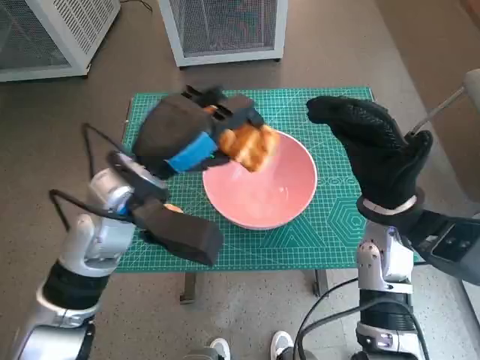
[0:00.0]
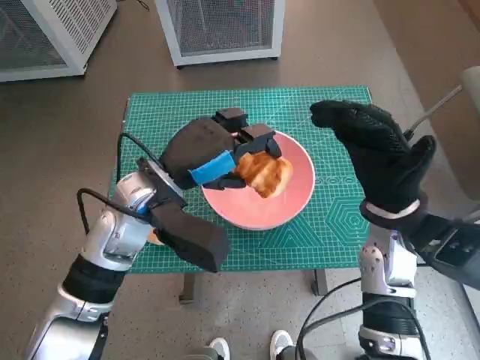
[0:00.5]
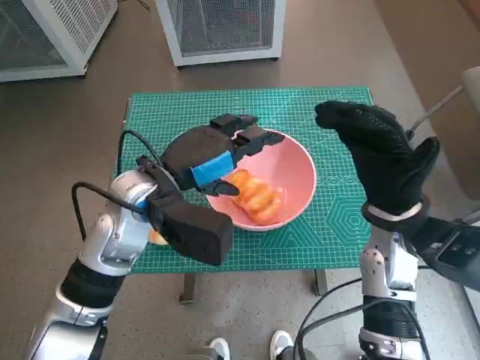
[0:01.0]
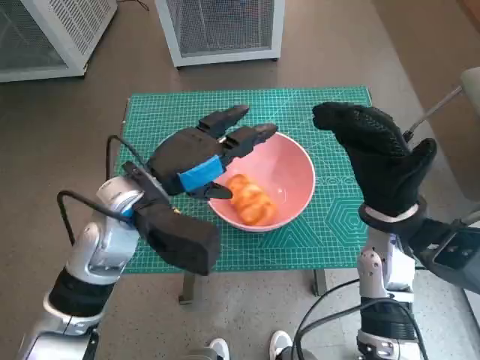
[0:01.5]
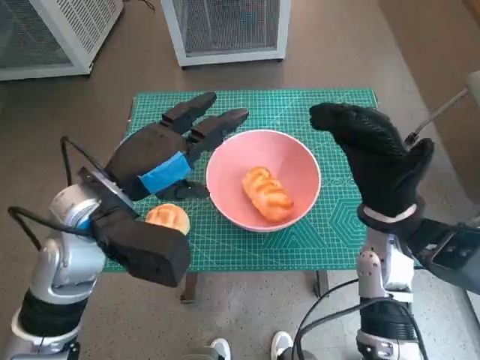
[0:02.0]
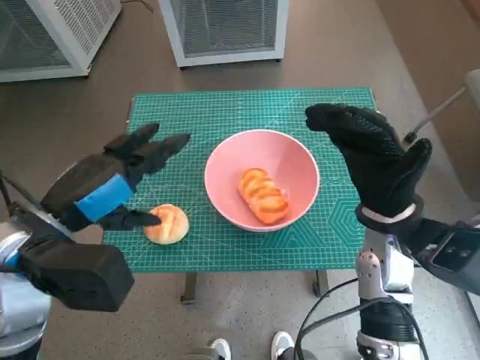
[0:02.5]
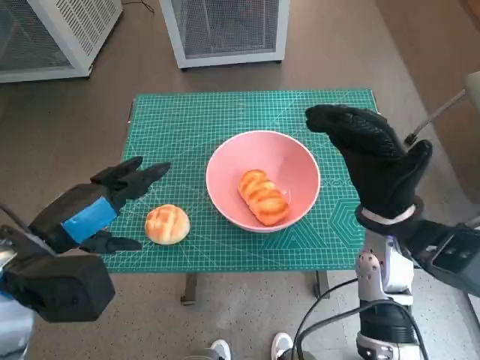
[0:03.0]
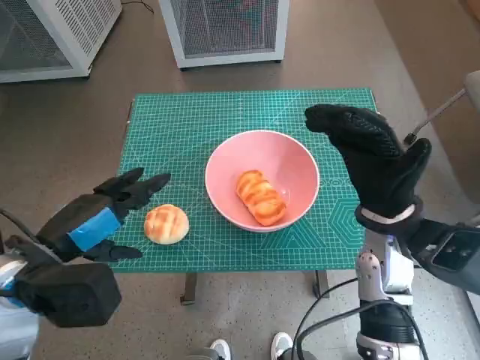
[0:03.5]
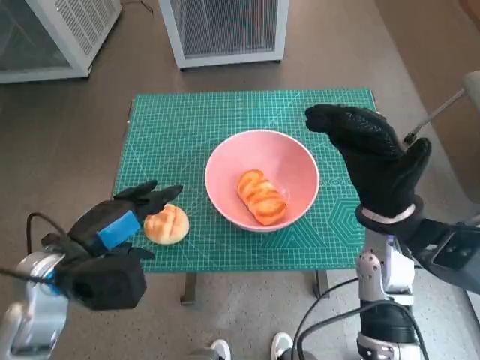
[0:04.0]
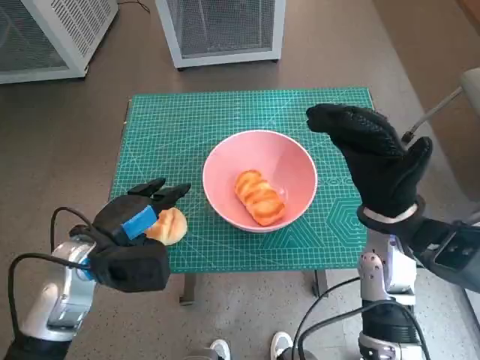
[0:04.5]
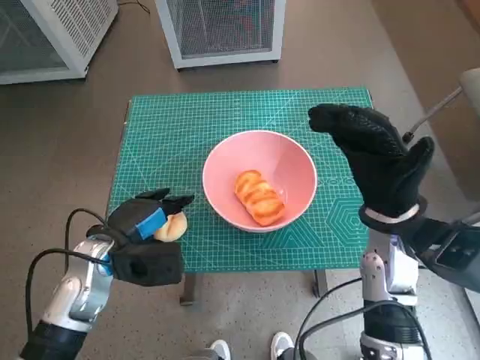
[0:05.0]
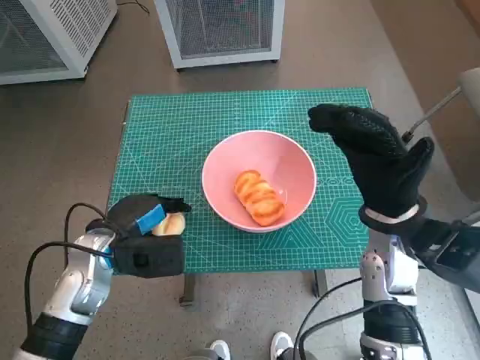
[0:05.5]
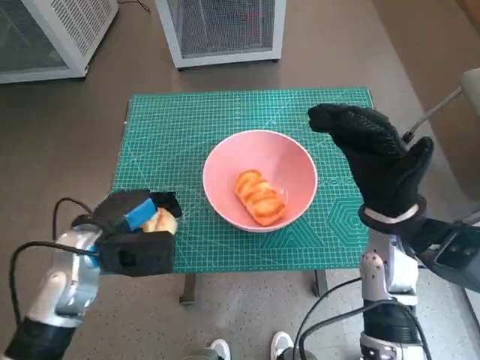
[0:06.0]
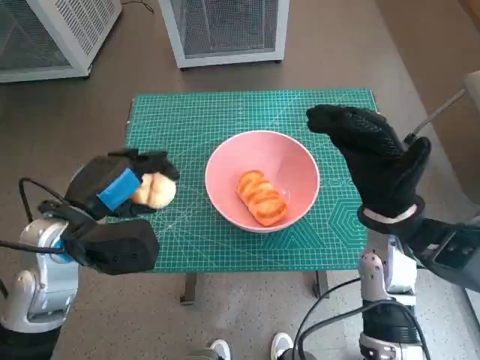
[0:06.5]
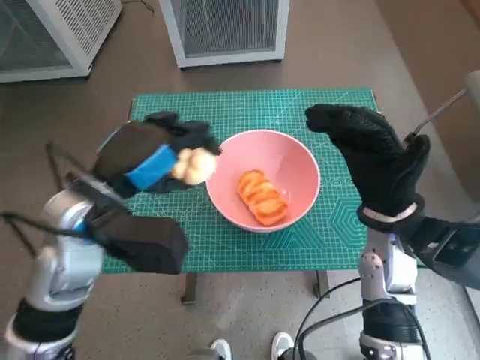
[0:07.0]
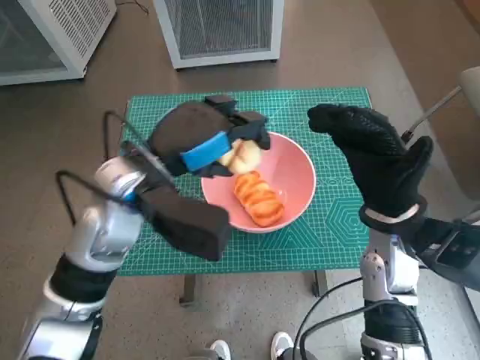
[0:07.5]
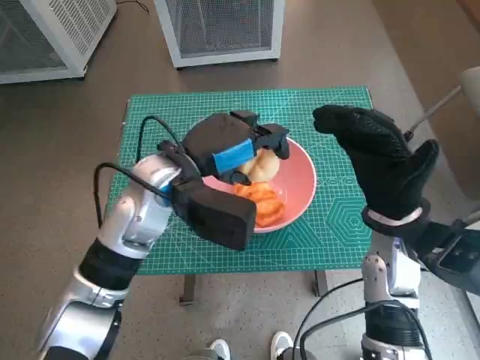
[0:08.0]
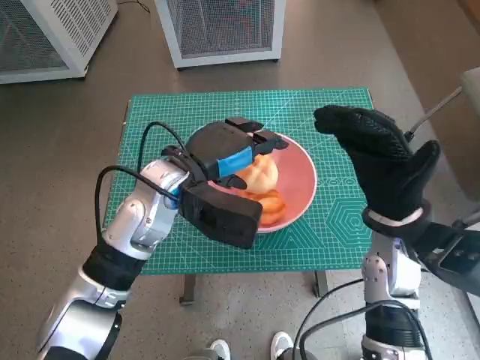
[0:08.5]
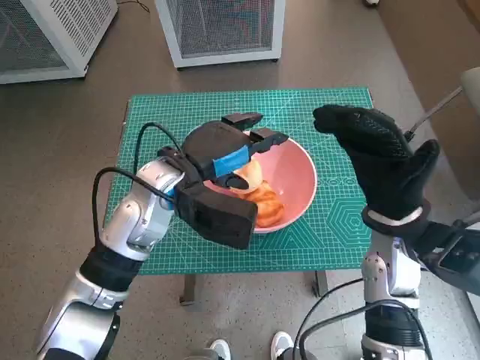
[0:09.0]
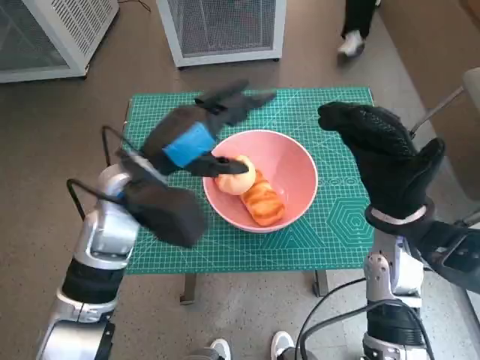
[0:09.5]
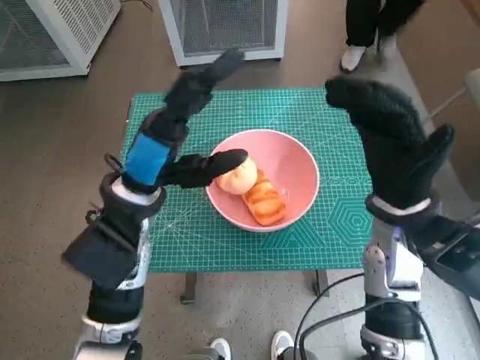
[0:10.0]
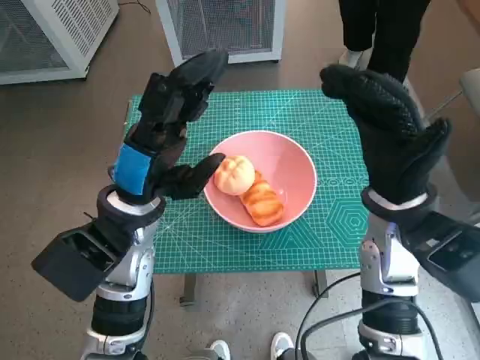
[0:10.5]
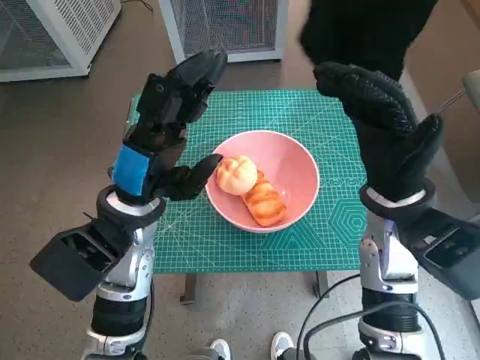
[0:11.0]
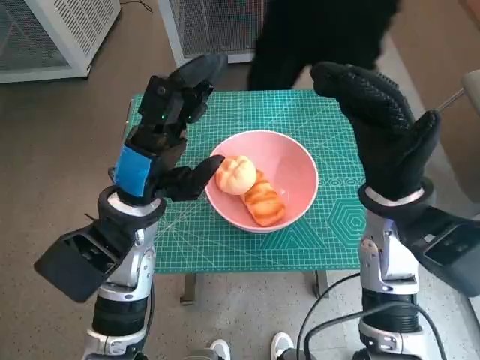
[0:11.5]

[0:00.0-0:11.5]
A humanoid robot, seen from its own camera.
Task of the whole recording: Push the bowl into the center of the table and put the bread into the bowl.
Step, 0:01.0 to 0:05.0: Grasp the round bread with left hand.
Step, 0:05.5 to 0:08.0: Place the round bread in pink bowl with left hand.
0:02.0 to 0:04.0: The left hand moves to the left and downward, roughly 10 cm.
0:04.0 to 0:06.0: The left hand changes place by about 5 cm.
0:06.0 to 0:07.5: The left hand travels upward and to the right by about 15 cm.
0:07.5 to 0:09.5: There are only small adjustments of the hands.

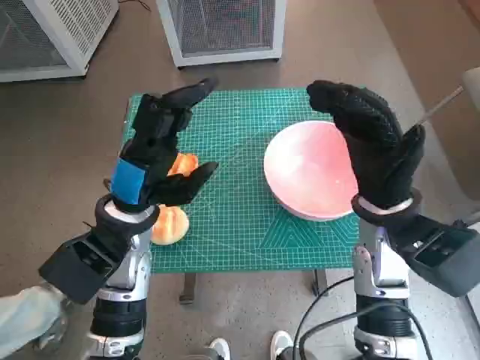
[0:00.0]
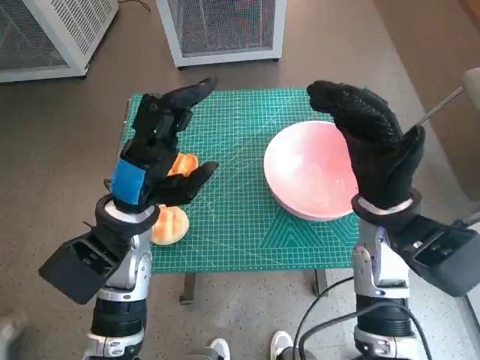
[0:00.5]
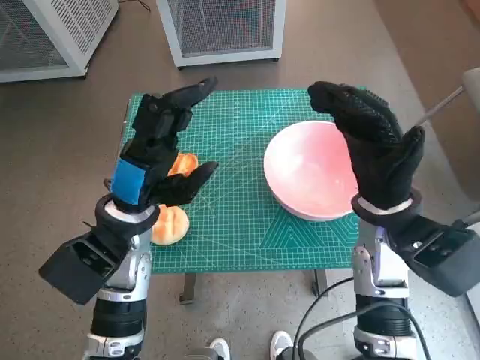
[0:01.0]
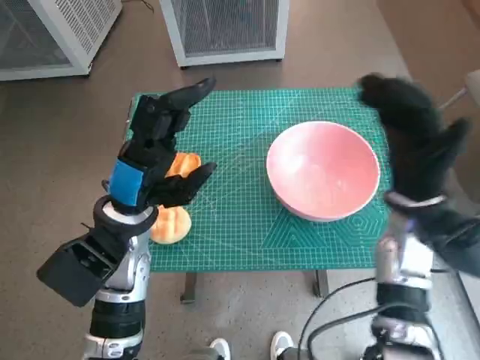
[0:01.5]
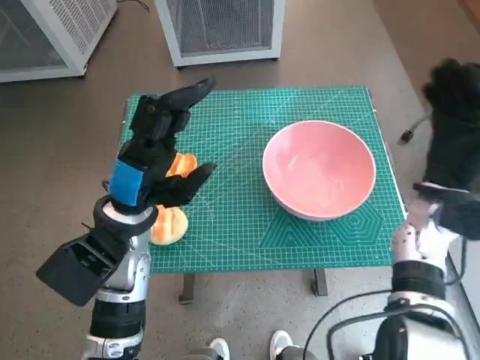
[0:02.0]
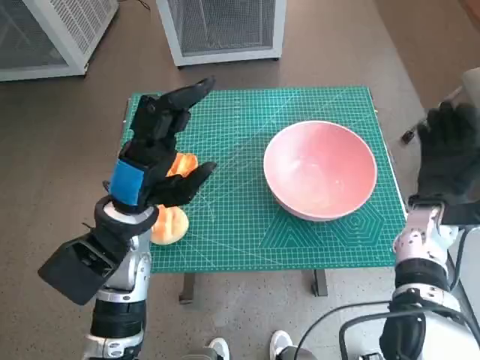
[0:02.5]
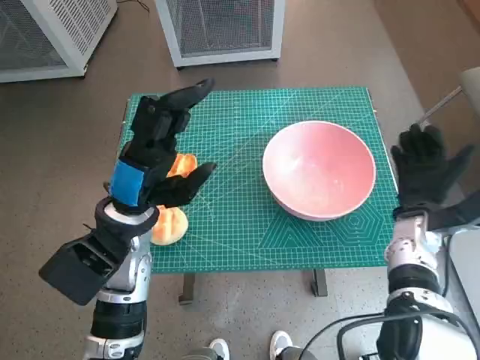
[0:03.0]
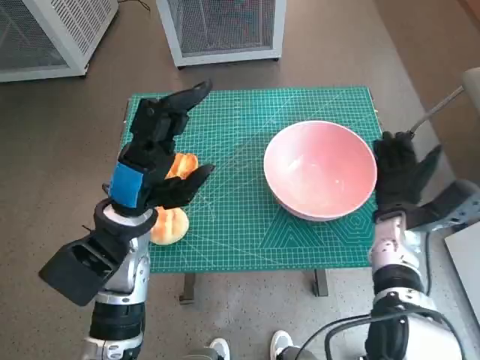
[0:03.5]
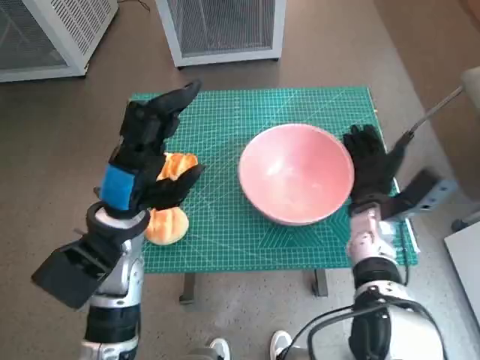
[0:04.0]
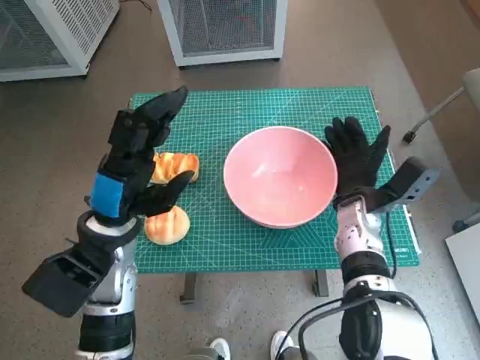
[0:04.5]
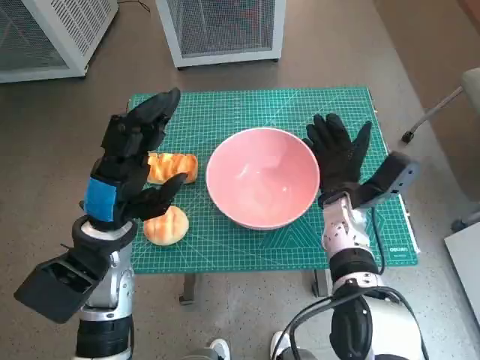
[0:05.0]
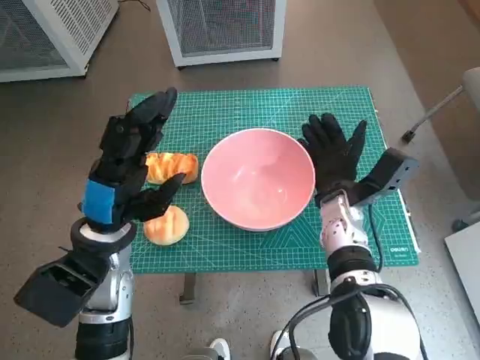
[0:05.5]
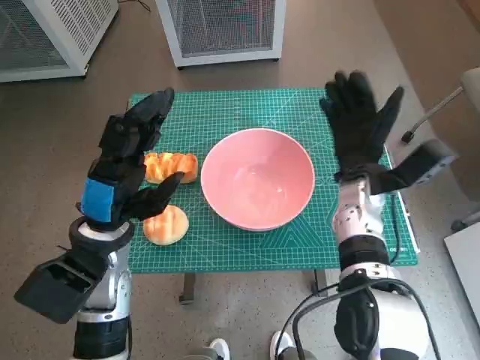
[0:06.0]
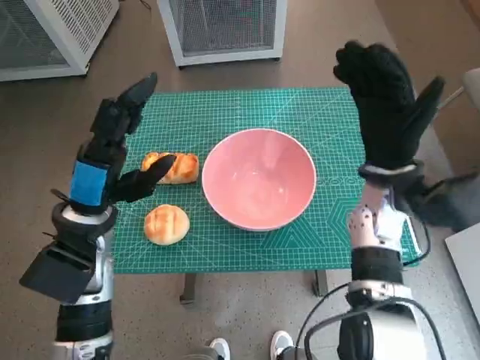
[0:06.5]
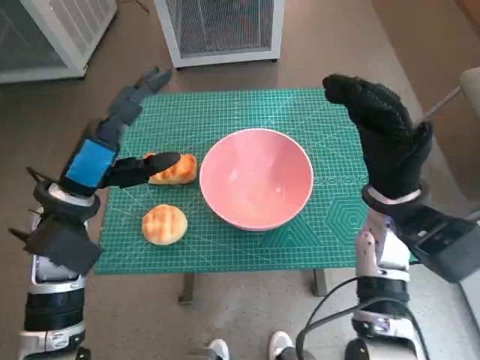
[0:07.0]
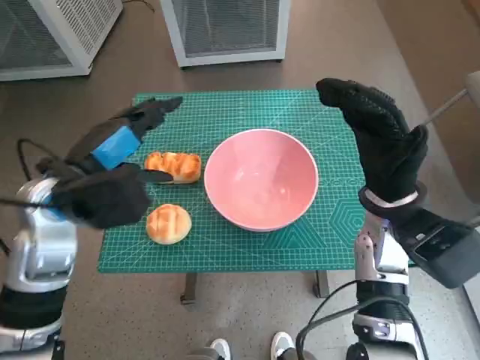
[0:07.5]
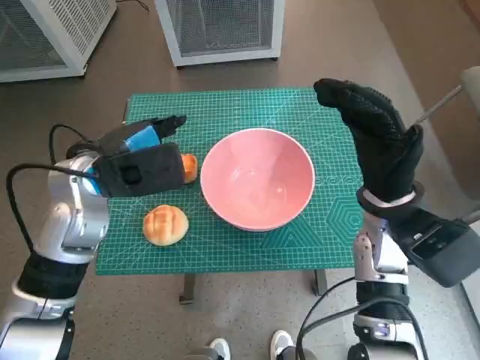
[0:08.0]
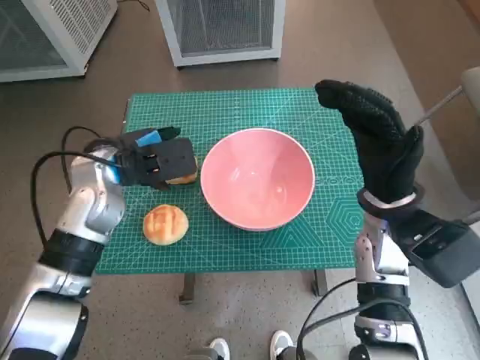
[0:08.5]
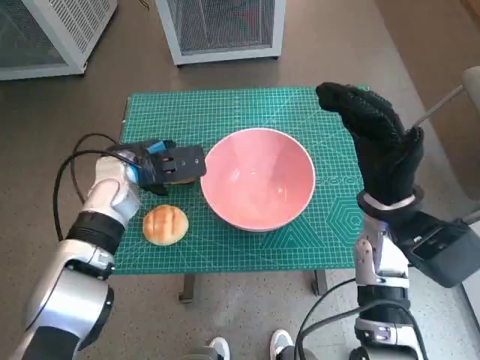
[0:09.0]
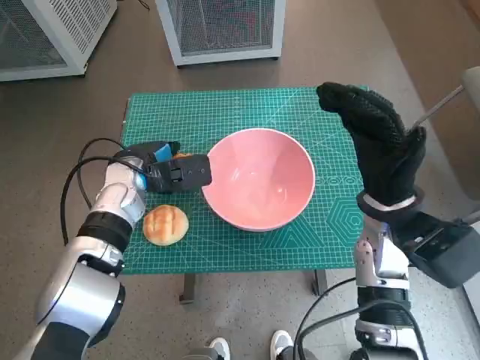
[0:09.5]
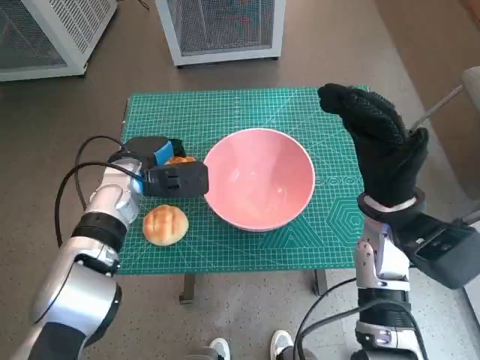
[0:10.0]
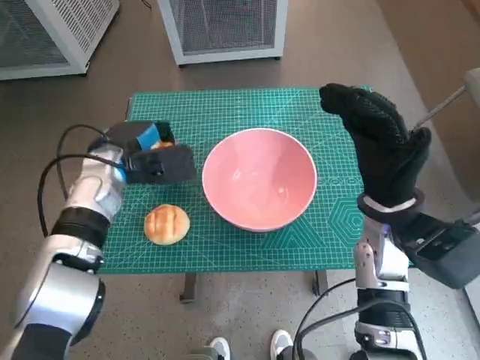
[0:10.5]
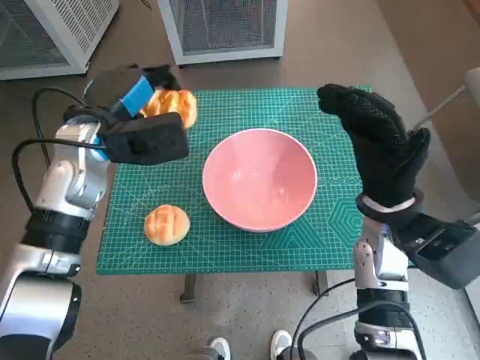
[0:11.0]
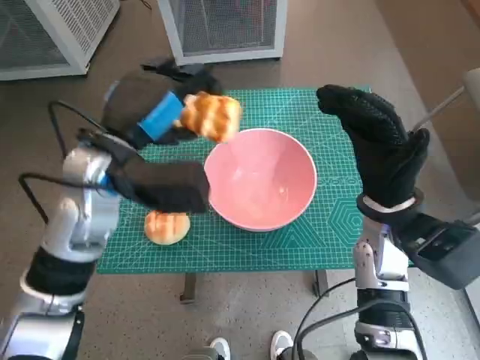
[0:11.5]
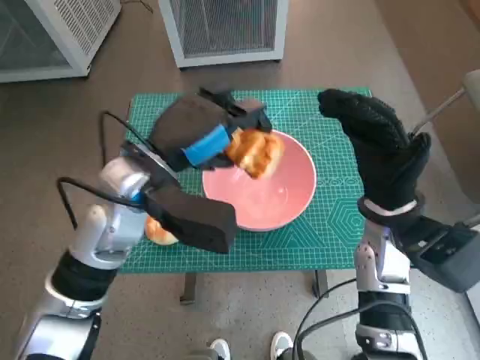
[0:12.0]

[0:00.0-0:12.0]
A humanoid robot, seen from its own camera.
Task of the whole recording: Push the bowl into the center of the table and put the bread into the bowl.
Step, 0:00.0 to 0:05.5: Move the pink bowl to the center of table with right hand.
Step, 0:06.0 to 0:09.5: Grasp the long bread with left hand.
0:02.0 to 0:04.0: The right hand heads downward and to the left, covering approximately 10 cm.
0:04.0 to 0:06.0: The right hand ends up roughly 5 cm from where it was.
0:06.0 to 0:08.0: The right hand shifts approximately 5 cm backward and upward; the left hand goes some 10 cm upward and forward.
0:08.0 to 0:10.0: The left hand is displaced downward and forward by roughly 10 cm.
0:10.0 to 0:12.0: The left hand is displaced upward, backward and to the right by approximately 15 cm.

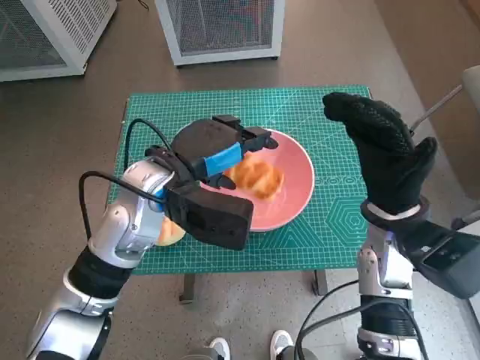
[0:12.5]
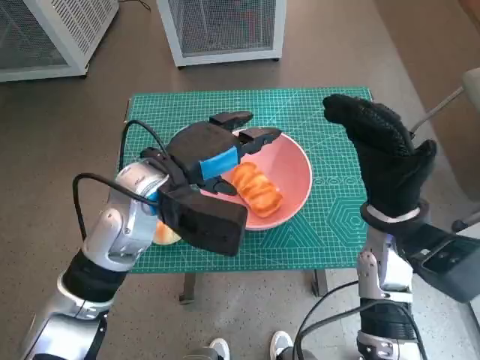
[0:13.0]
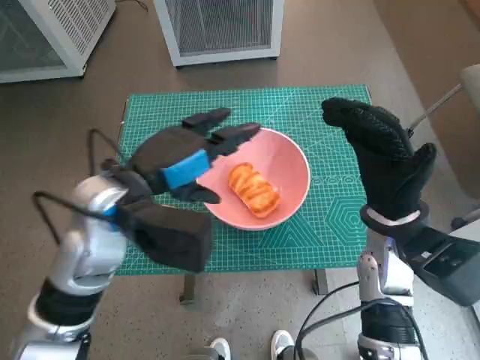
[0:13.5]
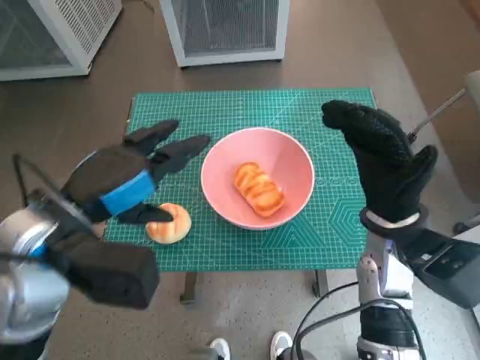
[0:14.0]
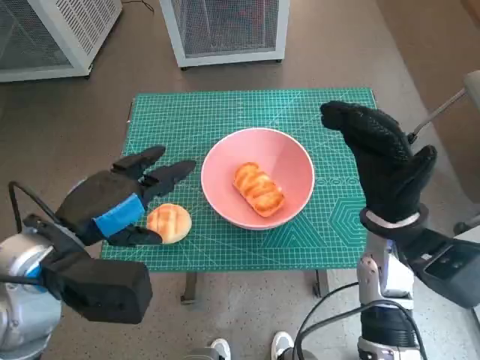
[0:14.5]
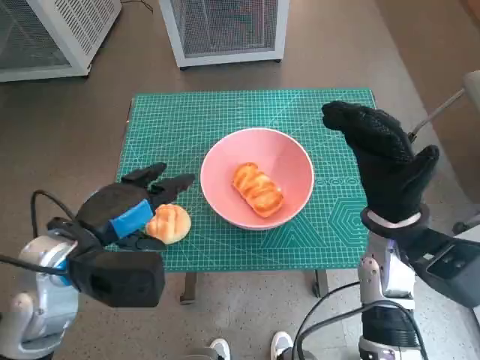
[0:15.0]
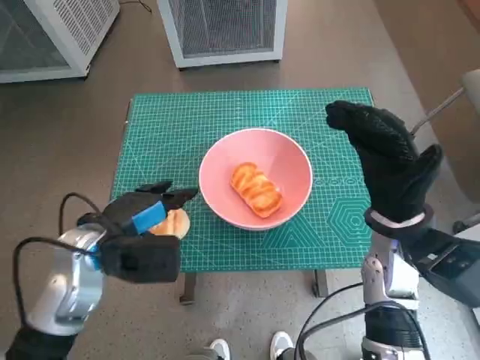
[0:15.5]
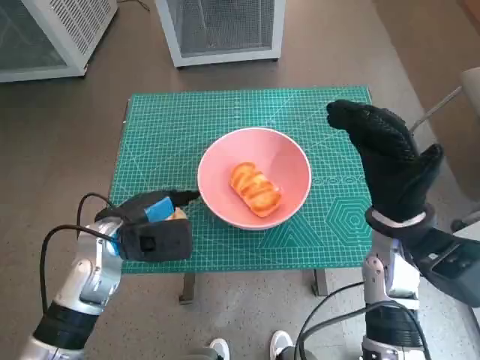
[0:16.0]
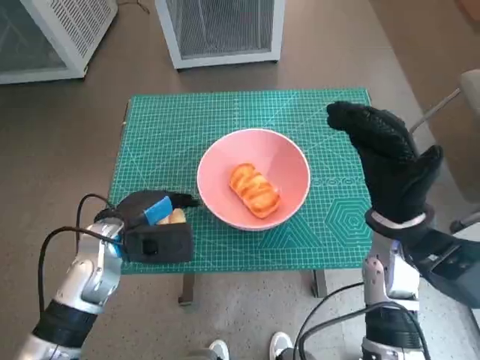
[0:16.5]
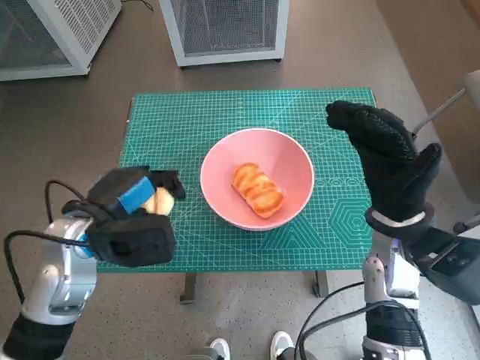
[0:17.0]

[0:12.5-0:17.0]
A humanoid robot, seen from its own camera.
Task of the whole recording: Push the bowl into the center of the table and put the bread into the bowl.
Step, 0:13.0 to 0:16.0: Grasp the round bread with left hand.
0:12.5 to 0:14.5: The left hand goes roughly 15 cm backward and to the left.
0:14.5 to 0:17.0: The left hand travels downward by roughly 5 cm.
